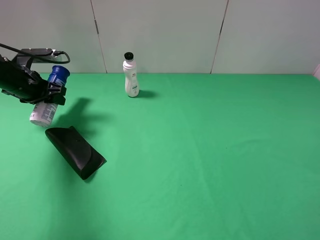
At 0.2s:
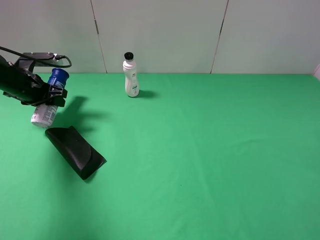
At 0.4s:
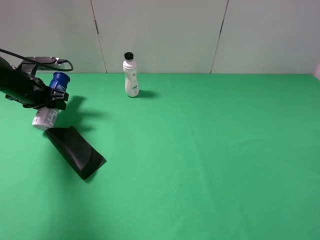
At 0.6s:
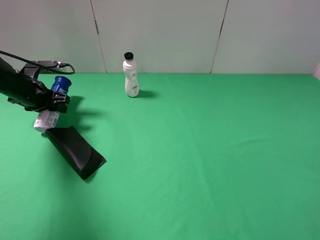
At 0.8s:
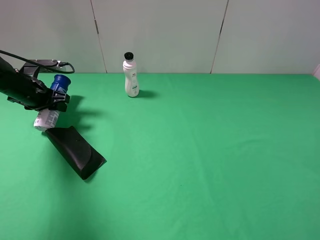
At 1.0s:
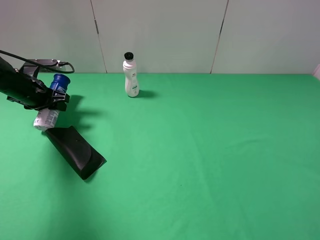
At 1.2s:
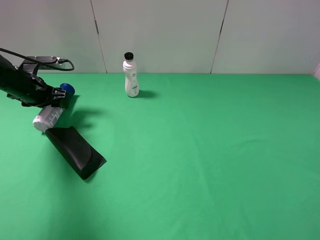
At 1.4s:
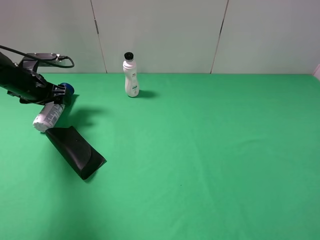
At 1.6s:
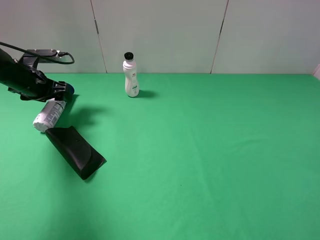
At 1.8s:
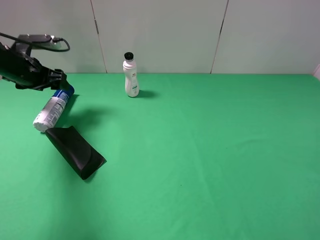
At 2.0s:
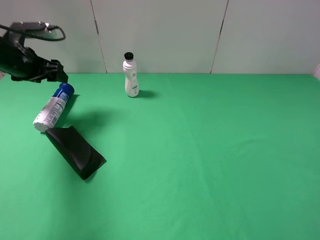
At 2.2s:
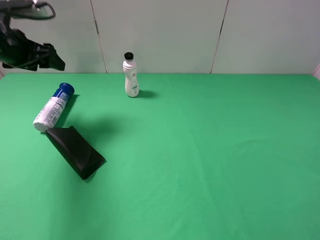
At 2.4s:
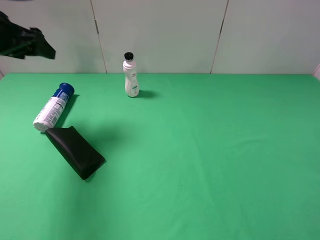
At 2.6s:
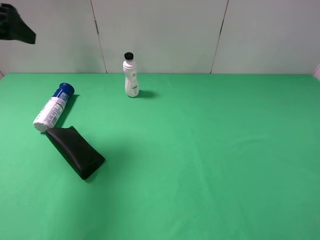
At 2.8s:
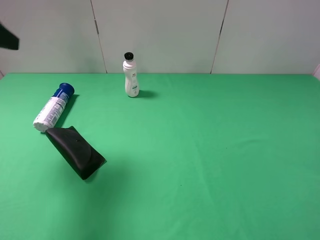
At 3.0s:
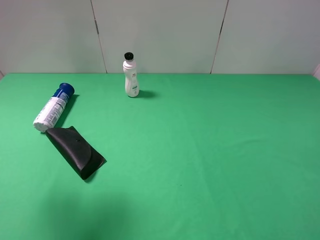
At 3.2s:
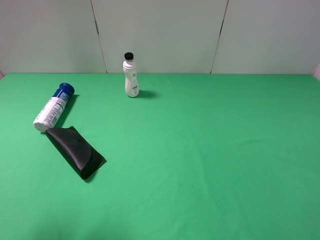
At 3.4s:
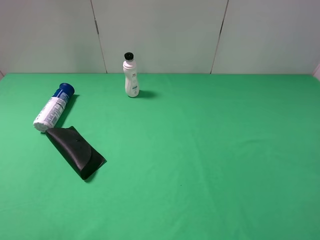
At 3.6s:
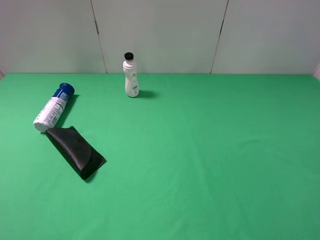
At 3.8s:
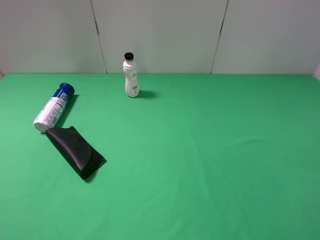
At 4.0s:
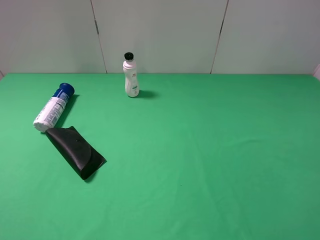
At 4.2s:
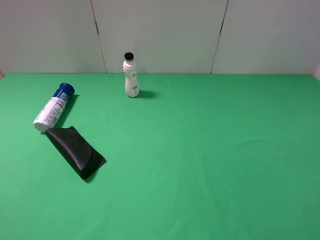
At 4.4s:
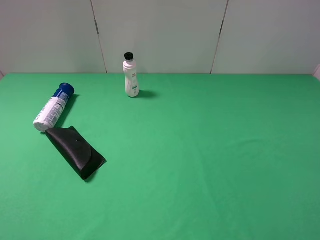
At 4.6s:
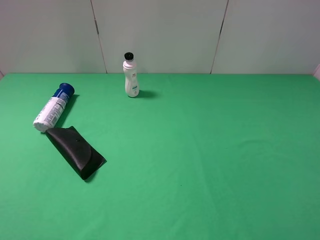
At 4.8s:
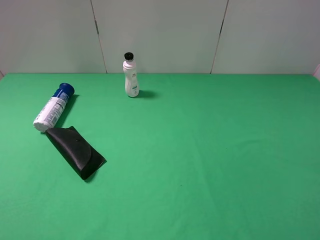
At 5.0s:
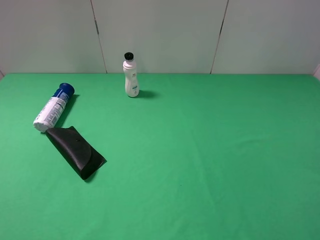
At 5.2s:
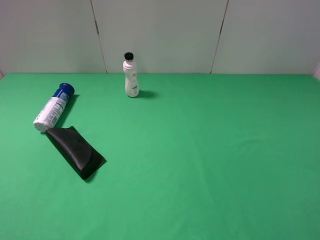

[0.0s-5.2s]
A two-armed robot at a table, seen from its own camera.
Task of the whole recording: use the right gripper to pick up the item and transfer it from the right gripper to the left gripper.
0.0s to 1.8s: The left gripper opens its fingers.
1.8s to 3.4s: The left gripper heads backward and upward, covering approximately 40 cm.

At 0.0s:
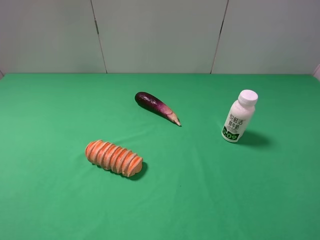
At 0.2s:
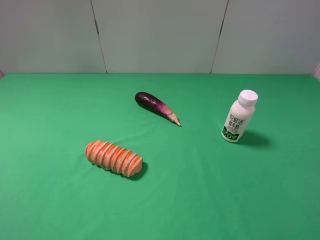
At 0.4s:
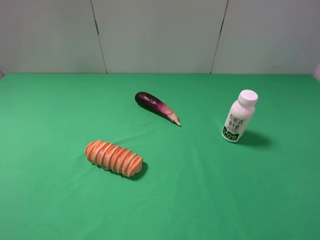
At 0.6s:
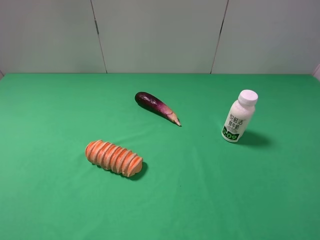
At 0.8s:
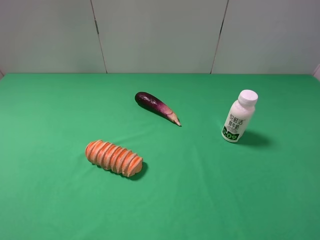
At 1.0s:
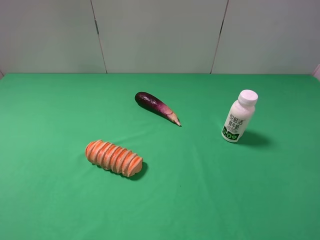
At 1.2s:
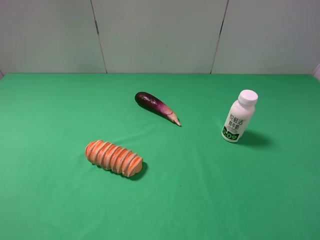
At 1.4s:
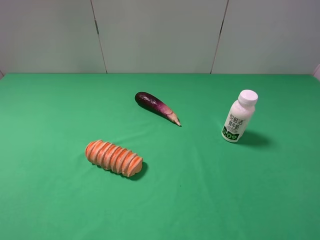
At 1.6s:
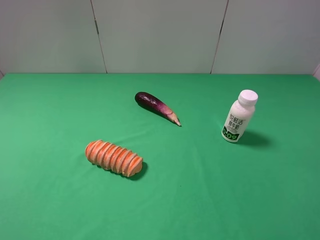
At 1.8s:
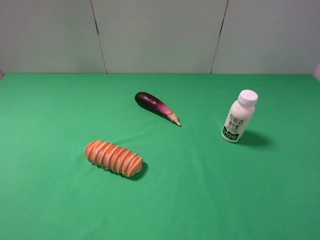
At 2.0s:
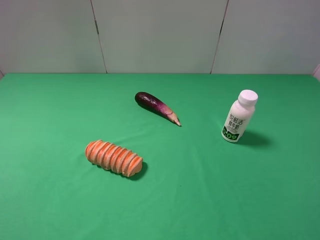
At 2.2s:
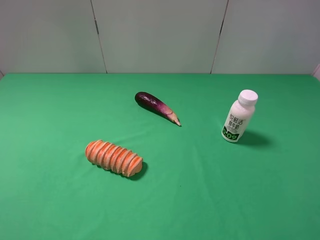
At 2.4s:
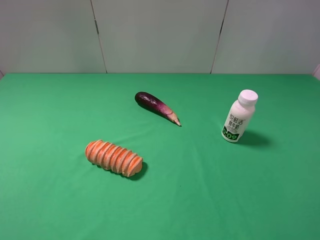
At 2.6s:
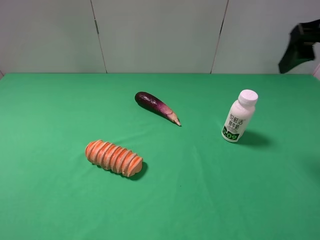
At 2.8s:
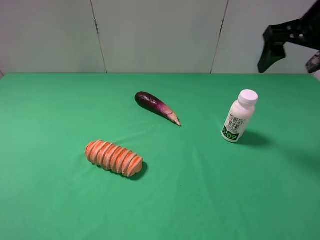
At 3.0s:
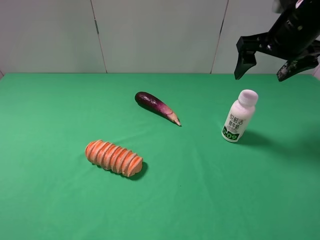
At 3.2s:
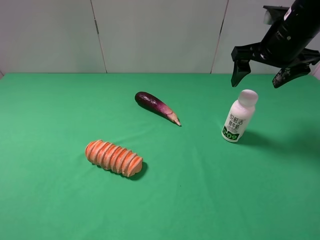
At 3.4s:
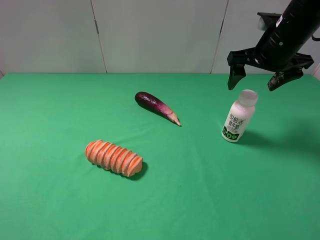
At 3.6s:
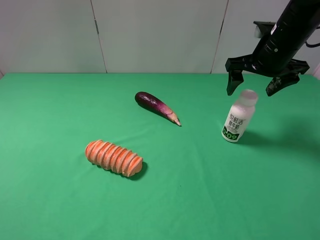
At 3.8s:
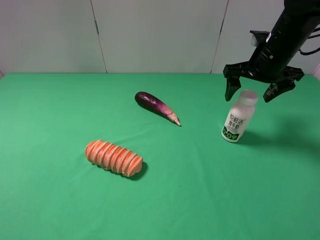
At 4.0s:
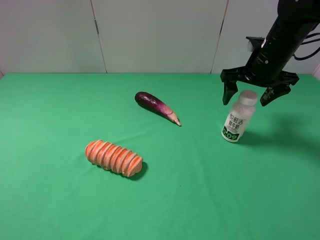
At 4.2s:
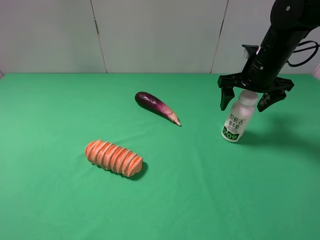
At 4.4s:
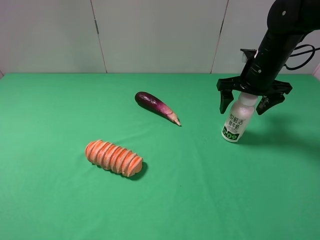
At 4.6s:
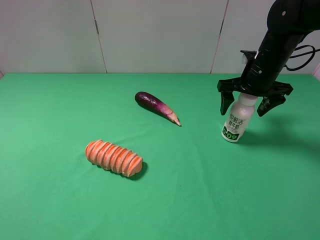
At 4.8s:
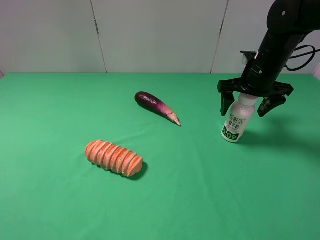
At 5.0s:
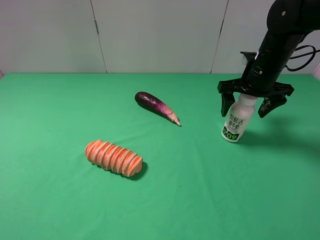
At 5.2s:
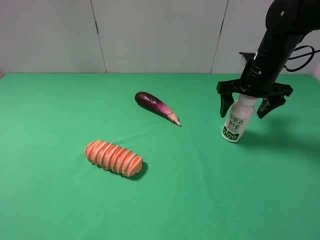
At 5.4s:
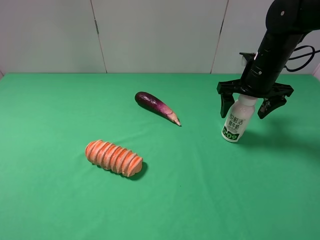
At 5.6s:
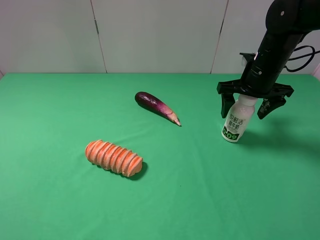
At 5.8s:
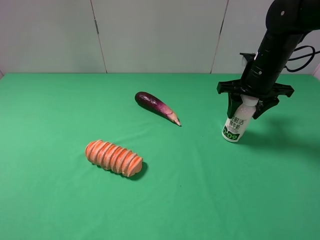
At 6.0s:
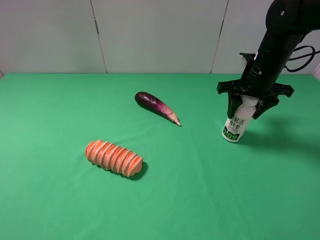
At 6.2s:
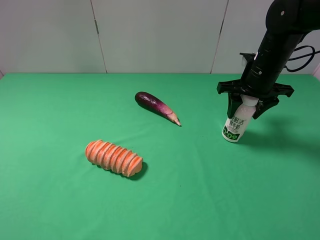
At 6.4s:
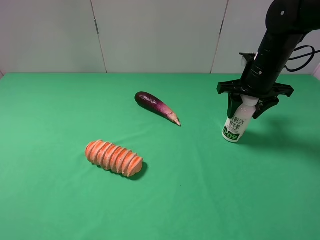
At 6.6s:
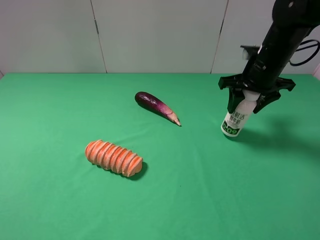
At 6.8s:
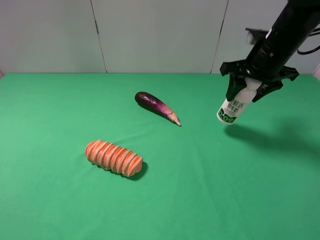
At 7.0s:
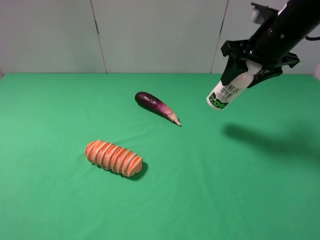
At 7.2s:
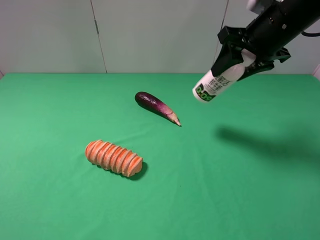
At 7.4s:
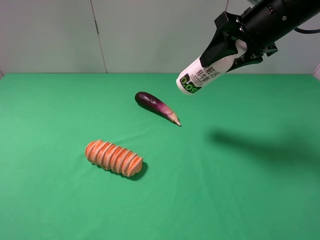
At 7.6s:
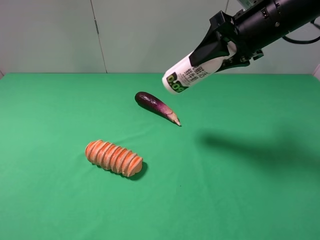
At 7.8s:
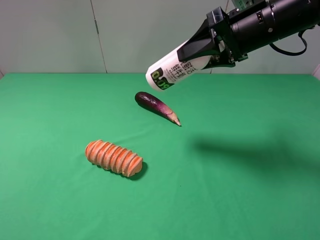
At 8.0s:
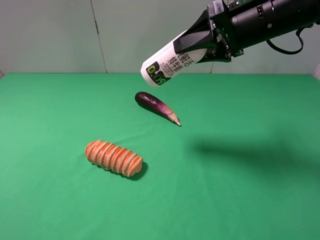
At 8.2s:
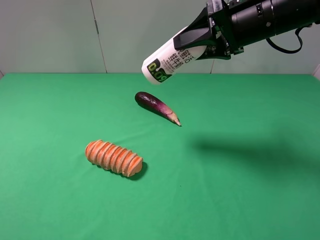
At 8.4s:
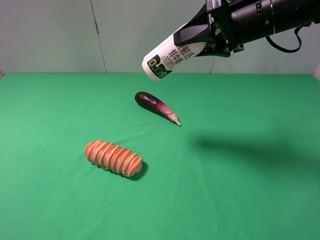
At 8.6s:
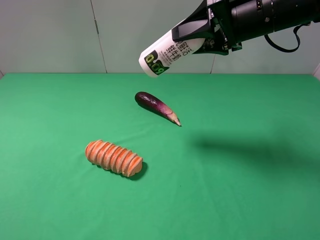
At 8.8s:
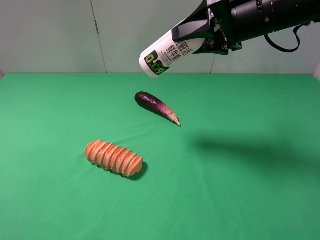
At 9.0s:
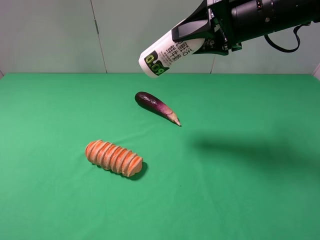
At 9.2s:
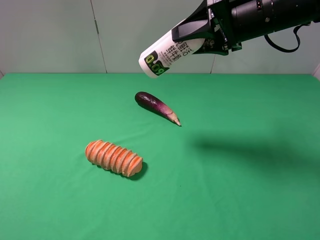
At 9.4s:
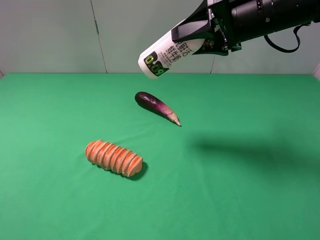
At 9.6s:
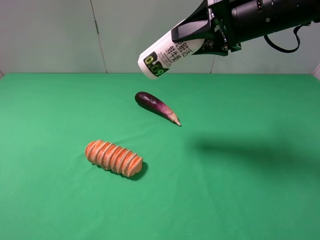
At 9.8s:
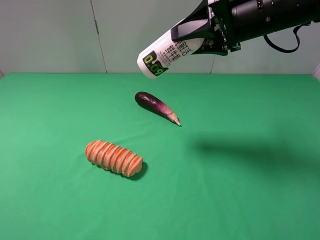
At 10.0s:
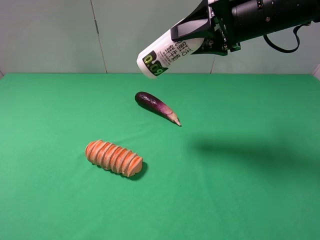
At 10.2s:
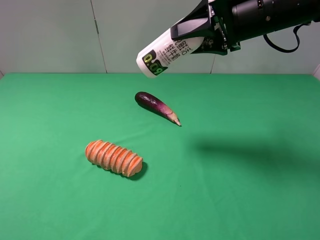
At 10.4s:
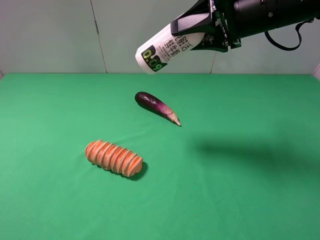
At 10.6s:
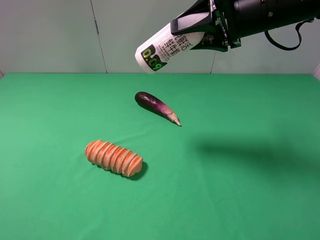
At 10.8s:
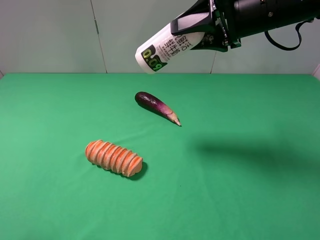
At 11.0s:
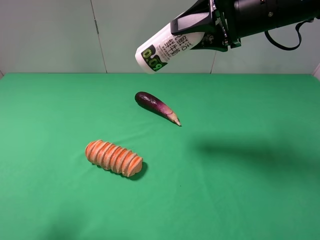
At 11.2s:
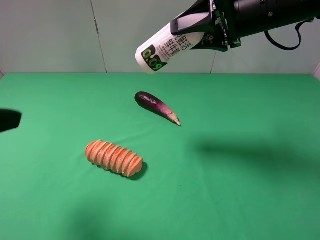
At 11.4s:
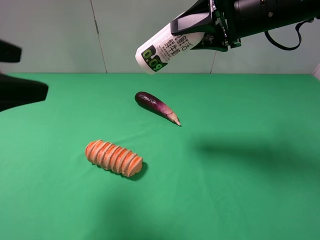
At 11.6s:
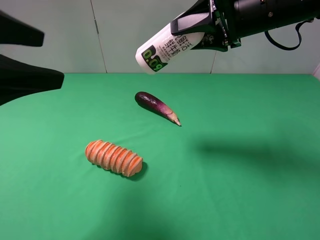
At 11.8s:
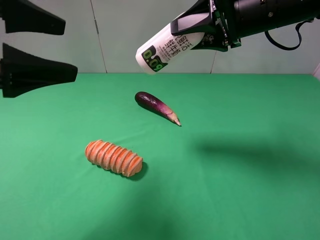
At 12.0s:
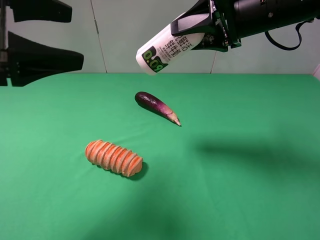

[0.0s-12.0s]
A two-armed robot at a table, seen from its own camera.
Task of the whole recording: use the right gripper to pick up the item and transfer it from the right gripper to the left gripper.
Step, 0.0s to 6.0s: Use the right gripper to grab the milk on the right side of the table.
0.0s to 1.6s: The two grippers keep their place.
1.6s to 3.0s: The right gripper is displaced forward by approximately 30 cm.
3.0s to 4.4s: The right gripper moves downward, some 10 cm.
4.4s to 6.0s: The right gripper closes its fingers.
6.0s to 7.6s: The right gripper is displaced upward by approximately 10 cm.
7.6s to 9.0s: There are only small adjustments of the grippers.
9.0s to 10.4s: Both grippers stay about where they are.
10.4s to 12.0s: The left gripper shifts roughly 20 cm forward.

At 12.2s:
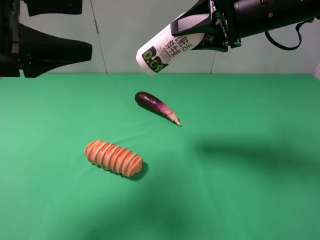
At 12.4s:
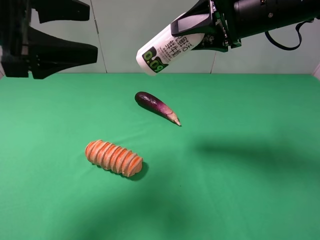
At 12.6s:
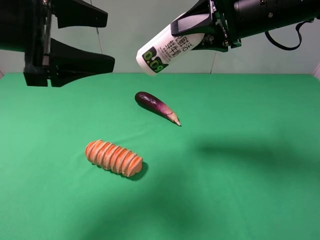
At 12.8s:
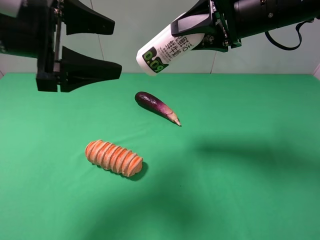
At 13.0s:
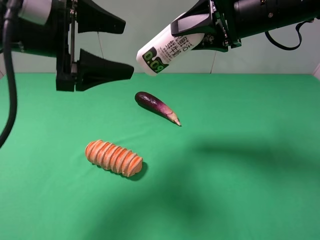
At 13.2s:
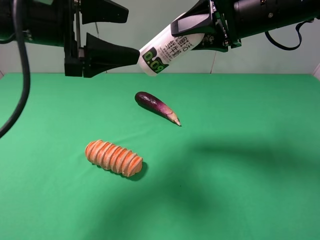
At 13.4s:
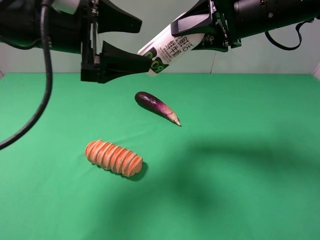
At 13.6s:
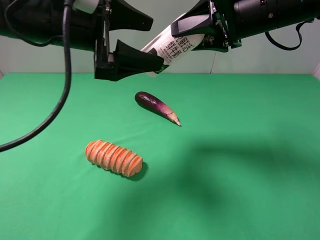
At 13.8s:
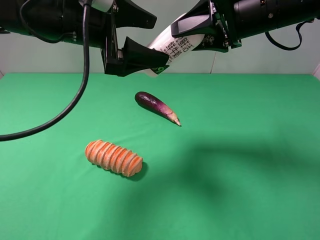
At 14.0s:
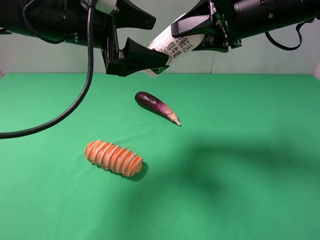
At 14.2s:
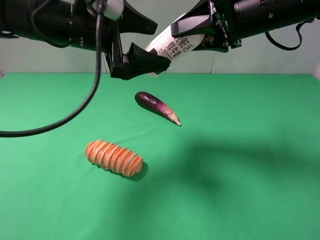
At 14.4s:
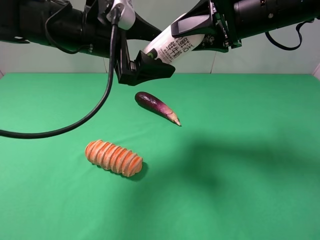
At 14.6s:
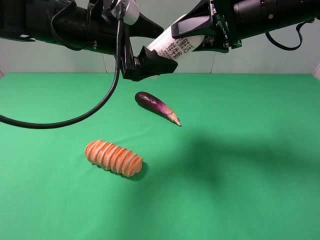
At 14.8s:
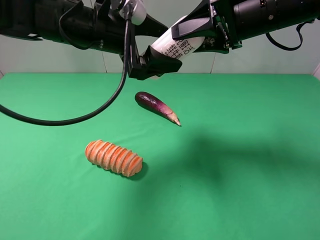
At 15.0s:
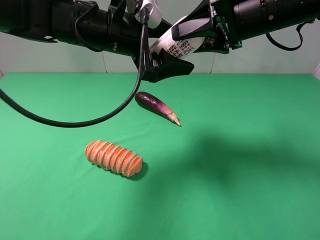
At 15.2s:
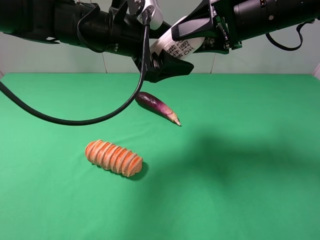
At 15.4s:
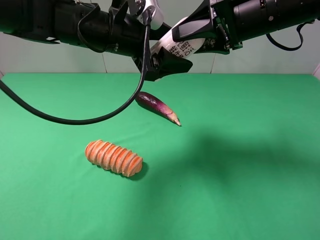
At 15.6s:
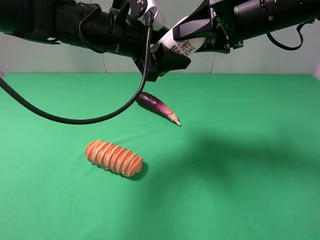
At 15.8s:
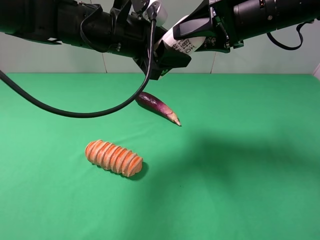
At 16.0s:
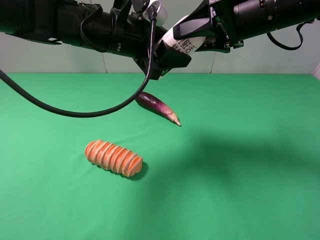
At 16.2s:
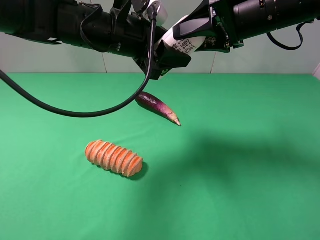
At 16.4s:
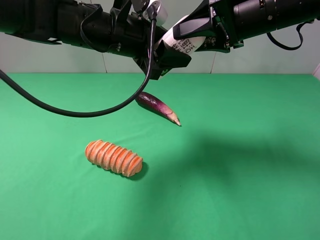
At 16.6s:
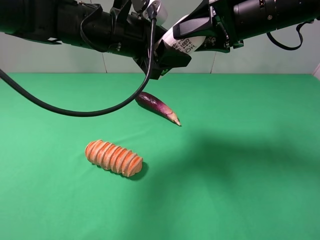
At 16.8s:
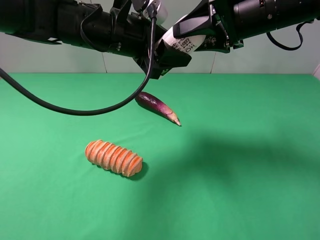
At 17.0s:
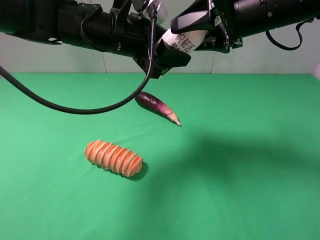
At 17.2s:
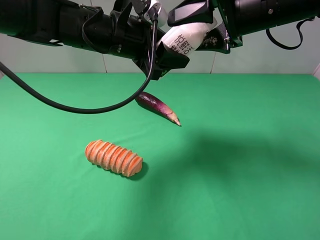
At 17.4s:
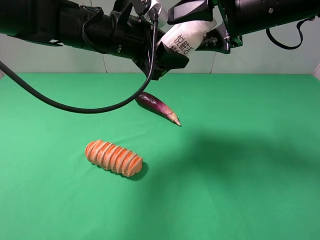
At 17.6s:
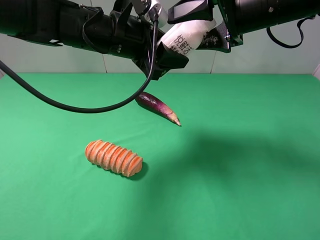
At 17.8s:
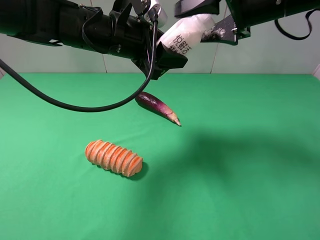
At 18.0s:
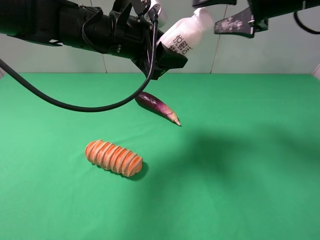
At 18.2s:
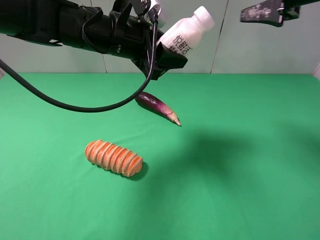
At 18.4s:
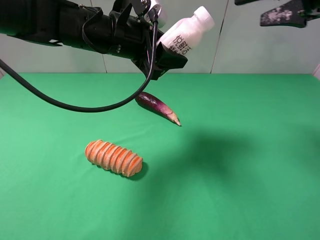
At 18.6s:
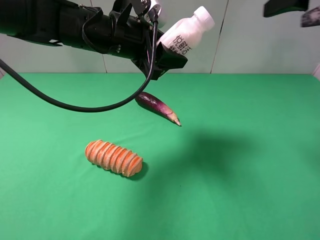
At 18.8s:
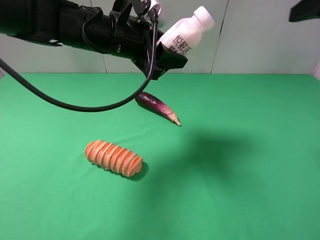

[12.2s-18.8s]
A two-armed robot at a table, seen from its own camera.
Task of the whole recording: use the right gripper to pick up the item and transfer it from the right gripper to the left gripper.
Step, 12.2s to 18.0s: Pass the milk to the left gripper.
12.2s to 13.8s: The left gripper moves to the right and forward, roughly 10 cm.
13.8s to 15.4s: The left gripper ends up about 5 cm from where it was.
15.4s to 17.2s: The left gripper closes up. The right gripper opens up.
17.2s to 18.8s: The right gripper is displaced to the right, backward and upward by approximately 15 cm.
